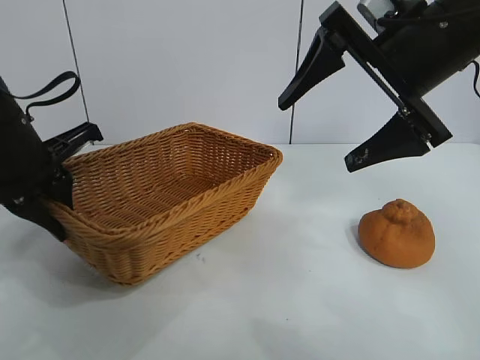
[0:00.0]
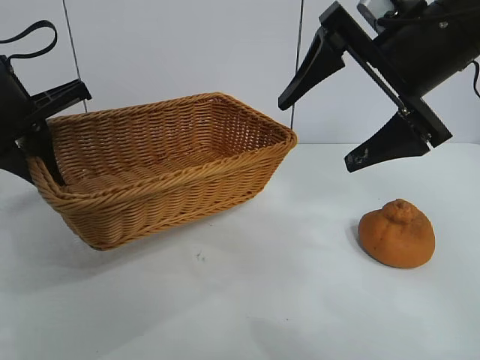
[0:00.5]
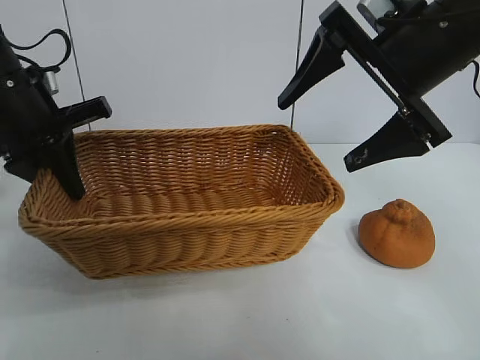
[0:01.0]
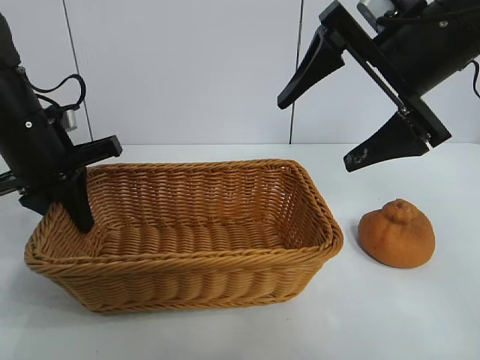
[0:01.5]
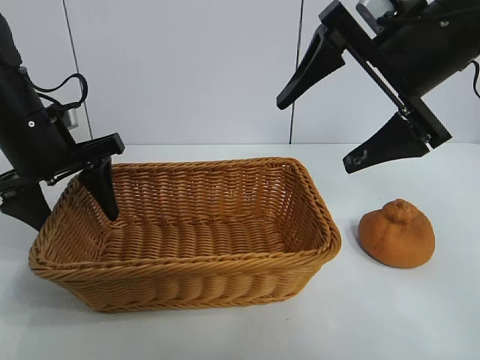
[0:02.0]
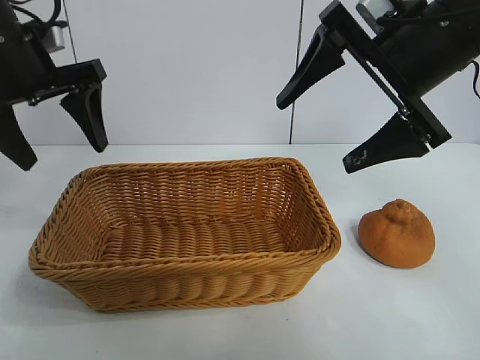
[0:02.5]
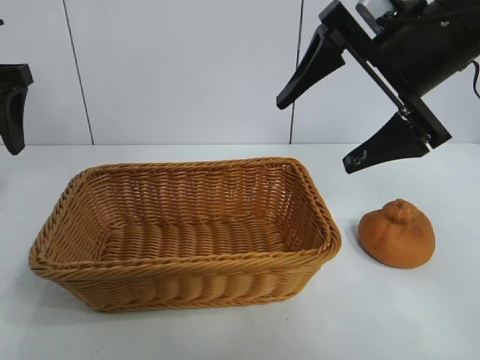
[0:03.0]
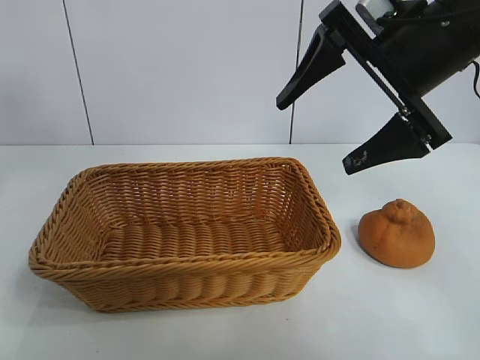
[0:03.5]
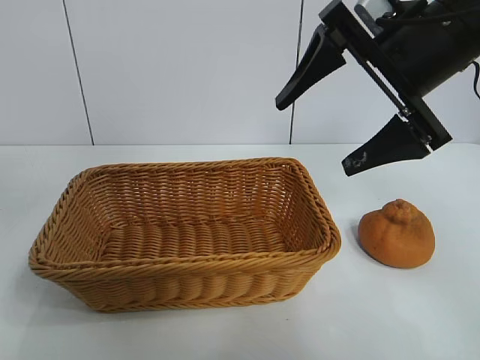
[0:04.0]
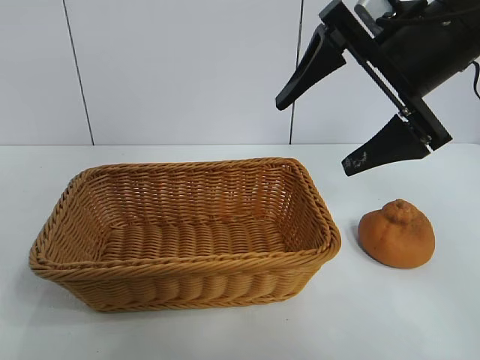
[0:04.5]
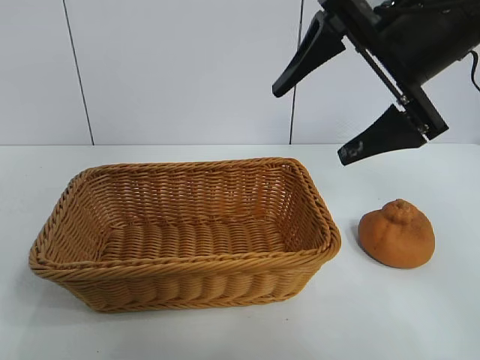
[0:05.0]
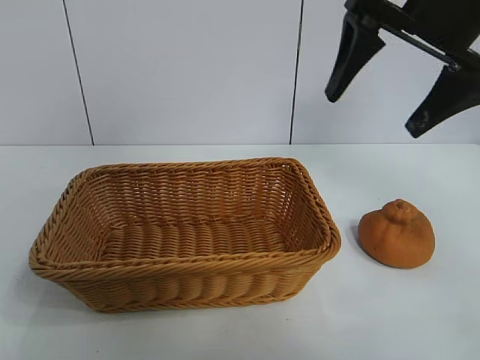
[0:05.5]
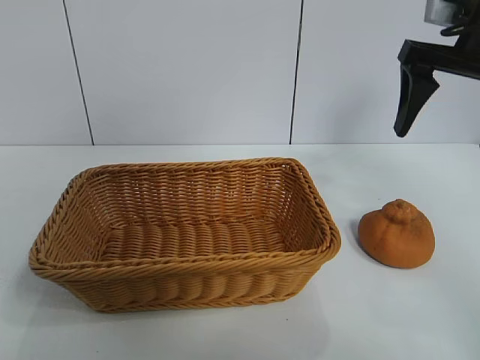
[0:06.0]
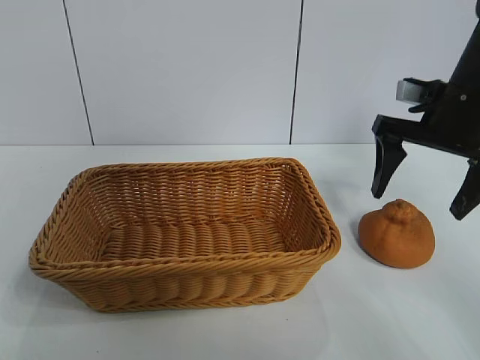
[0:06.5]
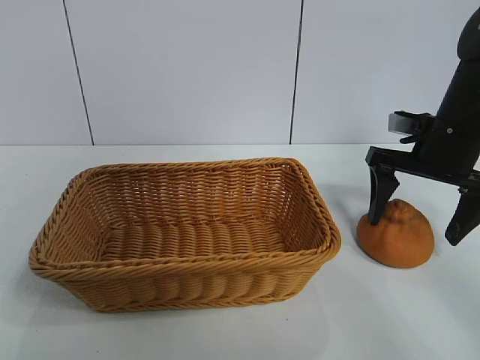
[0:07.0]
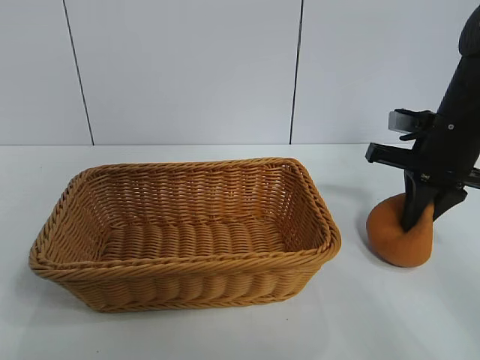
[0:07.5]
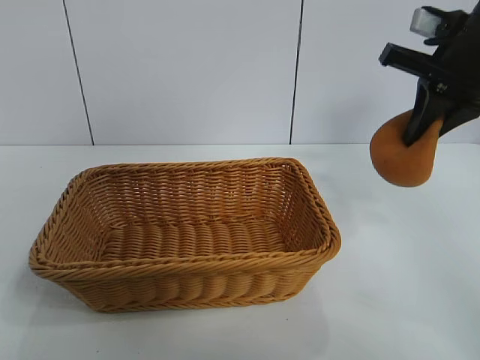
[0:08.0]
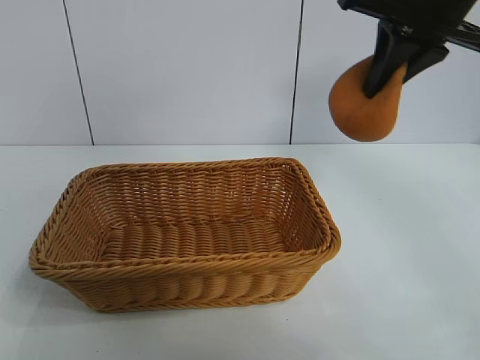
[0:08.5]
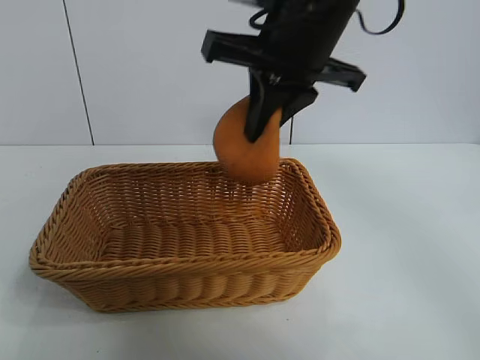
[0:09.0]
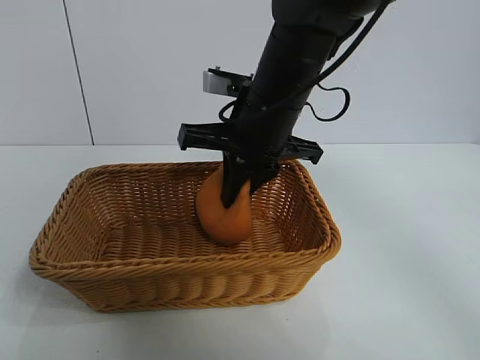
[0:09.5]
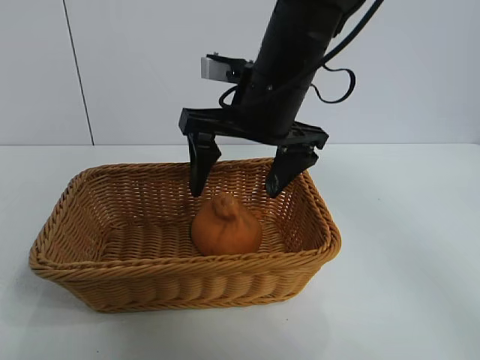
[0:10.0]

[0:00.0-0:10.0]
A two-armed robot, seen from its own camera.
Task of the whole recording: pick up the orange and put it into the basket.
Step, 0:00.0 to 0:02.0: Place the basket in the center of view with left gripper.
Step, 0:02.5 to 0:07.5: Grasp the orange with right gripper.
Step, 0:08.0 to 0:09.5: Place the orange in the basket with right gripper.

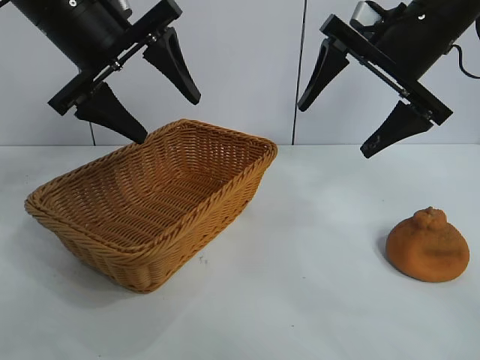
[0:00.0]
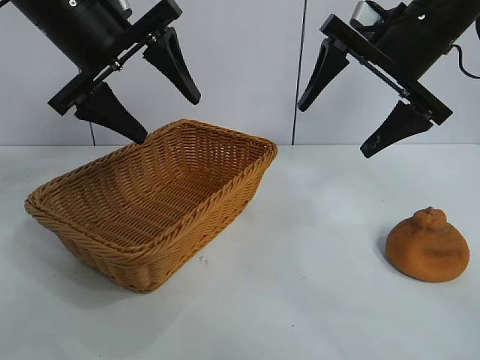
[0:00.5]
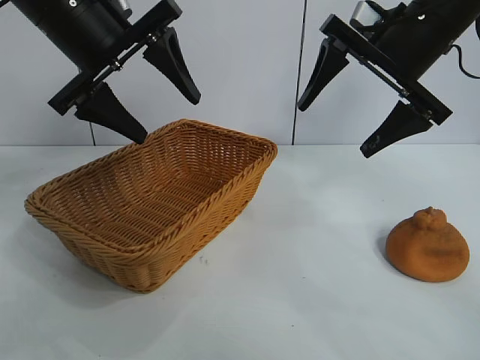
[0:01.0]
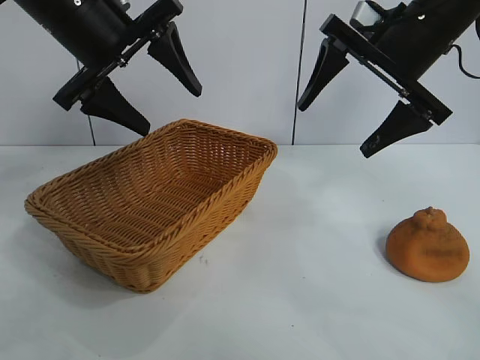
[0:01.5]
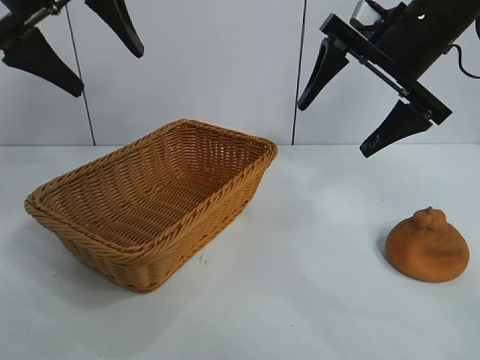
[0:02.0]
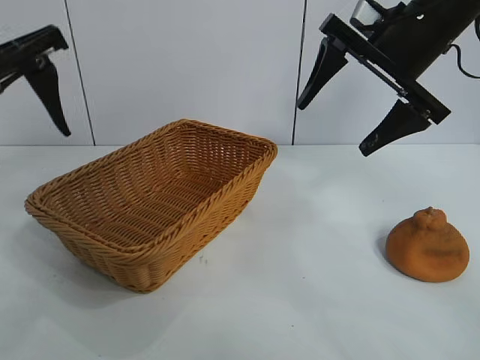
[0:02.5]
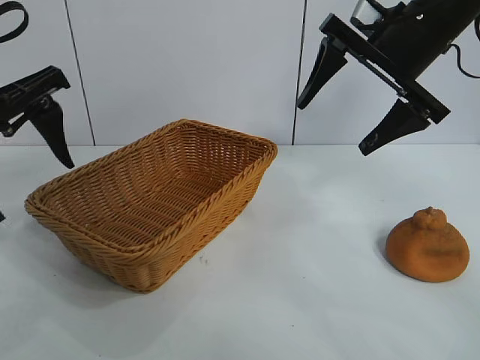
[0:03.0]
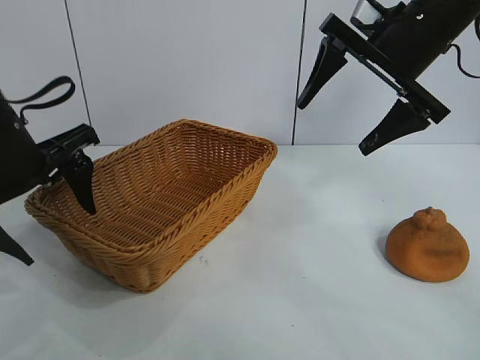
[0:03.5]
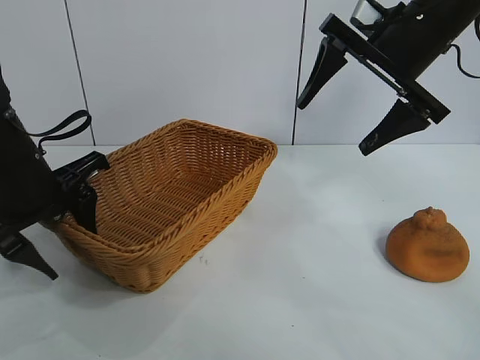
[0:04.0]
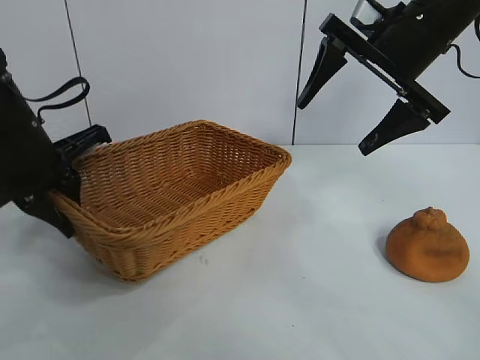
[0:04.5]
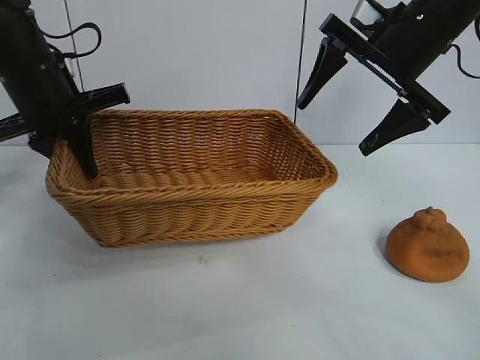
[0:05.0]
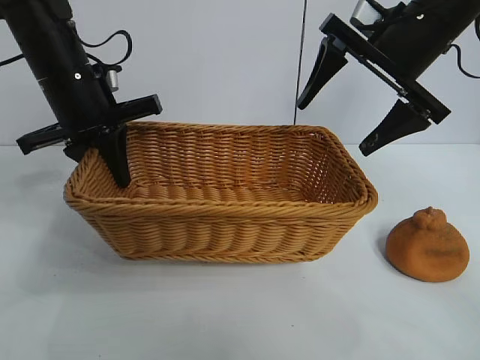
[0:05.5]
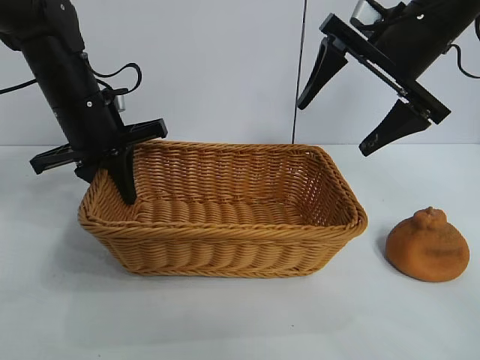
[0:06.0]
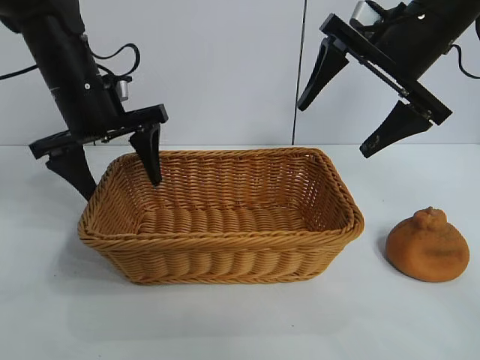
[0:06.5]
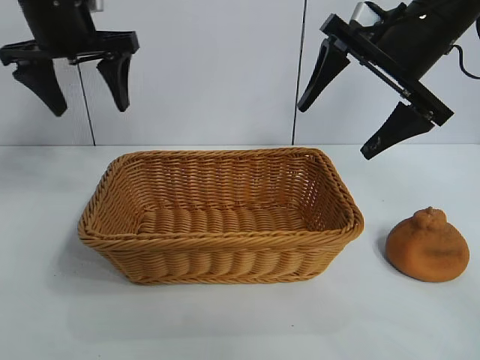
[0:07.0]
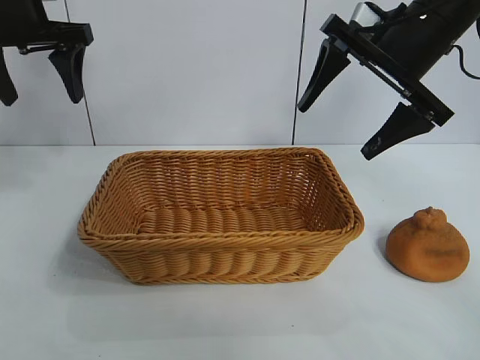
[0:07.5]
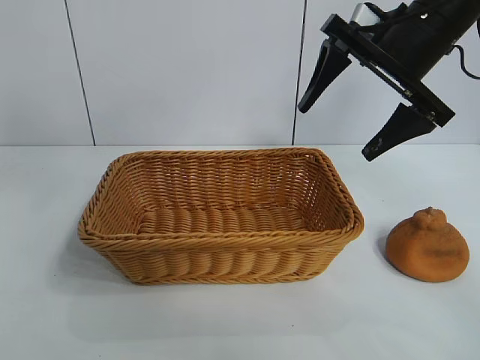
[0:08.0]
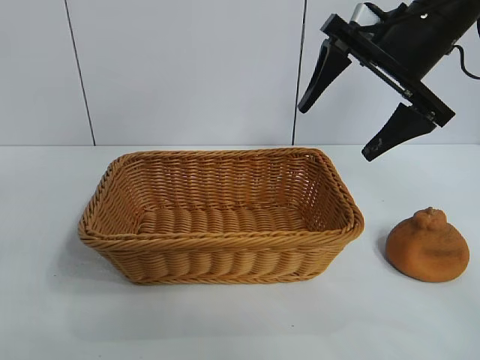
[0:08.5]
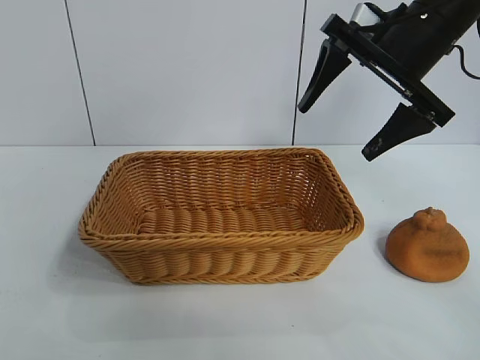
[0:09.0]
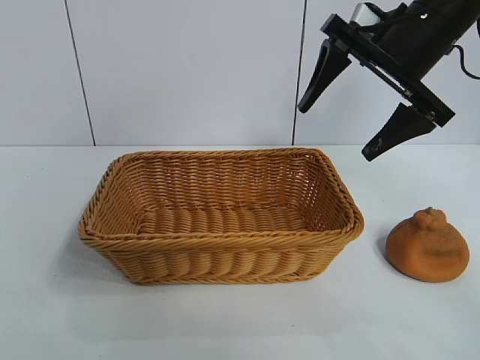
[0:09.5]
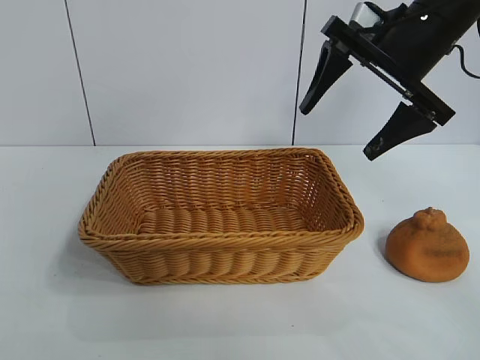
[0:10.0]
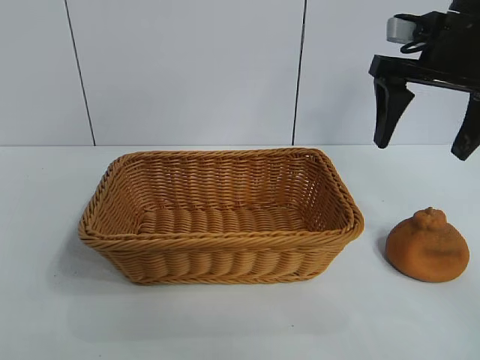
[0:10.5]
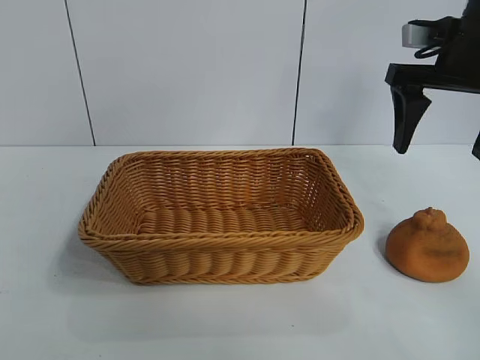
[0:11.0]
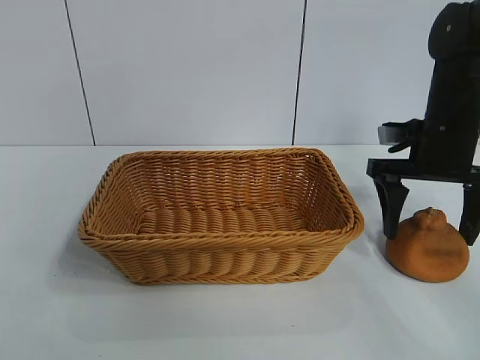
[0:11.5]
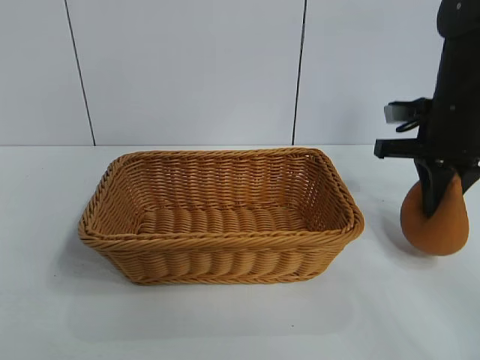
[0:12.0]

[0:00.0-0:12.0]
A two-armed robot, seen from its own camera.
Task of the whole recording: pick up the orange and put it into the basket.
Step, 0:01.0 to 0:04.0: Grasp the basket with left gripper.
Step, 0:04.5 to 0:06.0: Place the basket in the center of view with left gripper.
Step, 0:06.5 to 0:11.5: Grasp the orange with right gripper.

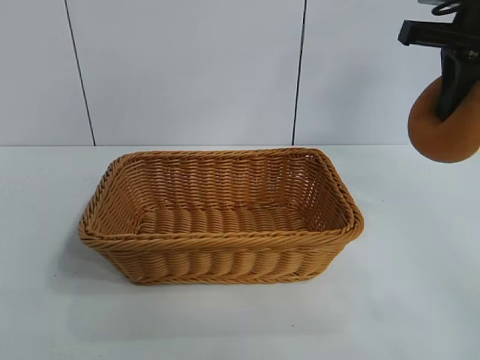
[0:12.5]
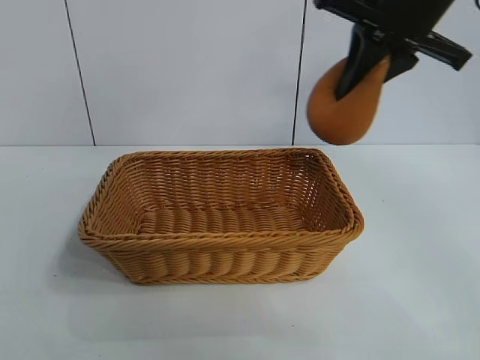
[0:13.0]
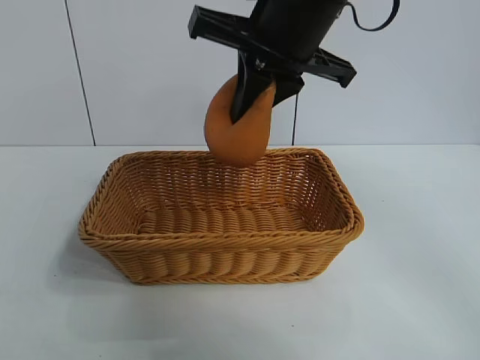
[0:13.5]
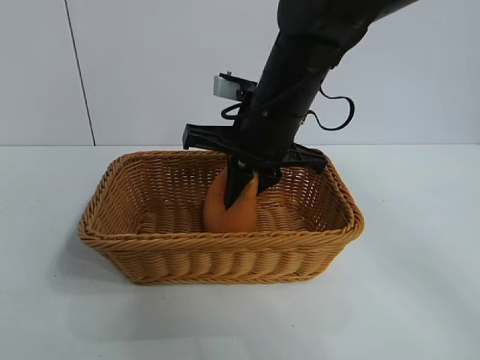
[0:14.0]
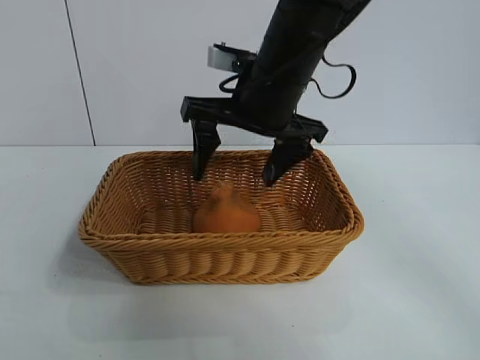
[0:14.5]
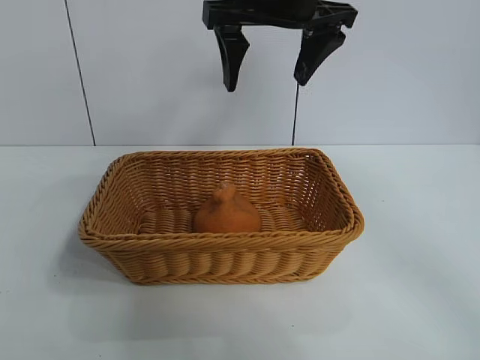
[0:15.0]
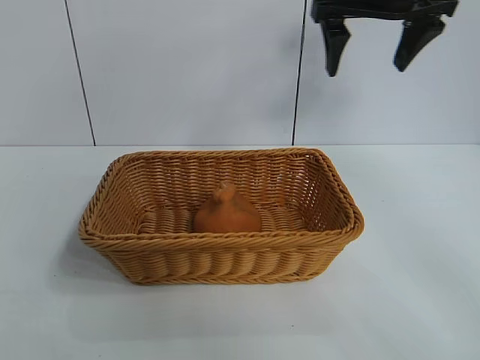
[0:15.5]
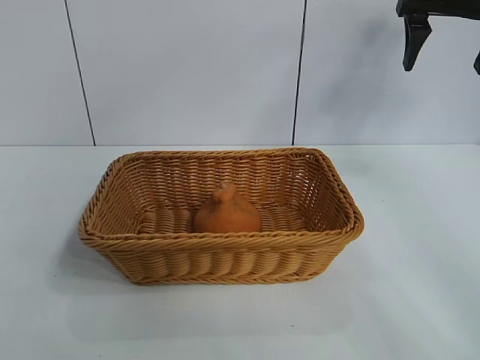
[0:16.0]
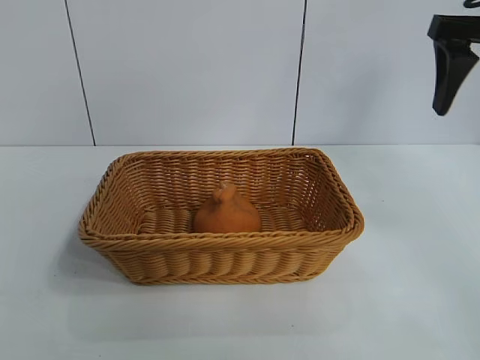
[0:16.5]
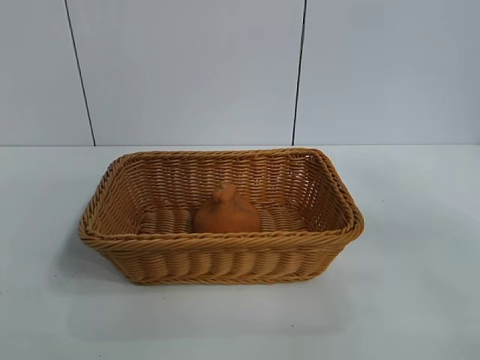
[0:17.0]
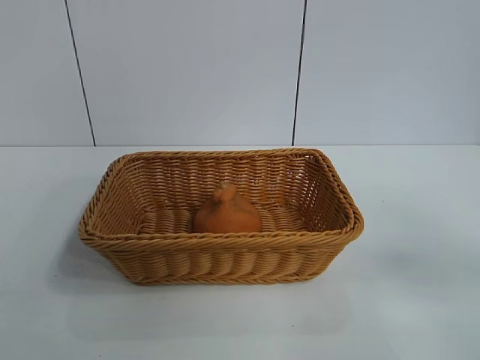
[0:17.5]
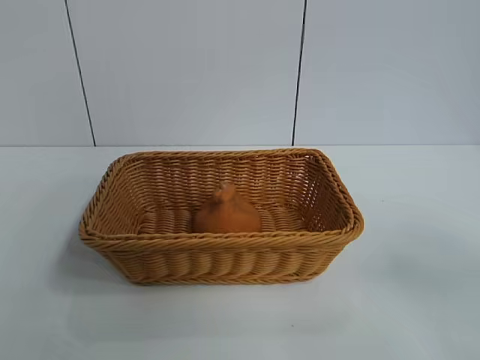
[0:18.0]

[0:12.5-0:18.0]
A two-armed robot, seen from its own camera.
Task of the whole recording: pick up the orange and put it into the basket.
Step, 0:12.5 to 0:14.5: Place the orange in the basket with right gripper.
